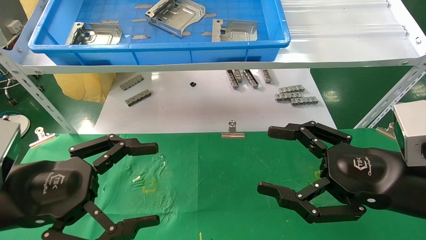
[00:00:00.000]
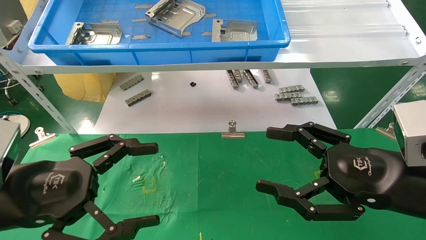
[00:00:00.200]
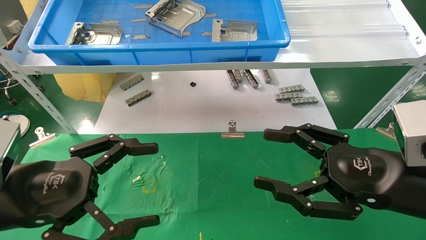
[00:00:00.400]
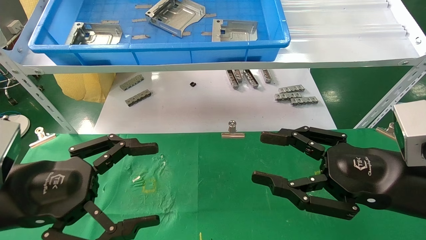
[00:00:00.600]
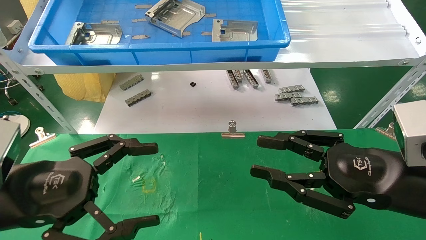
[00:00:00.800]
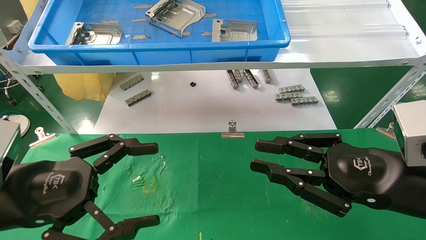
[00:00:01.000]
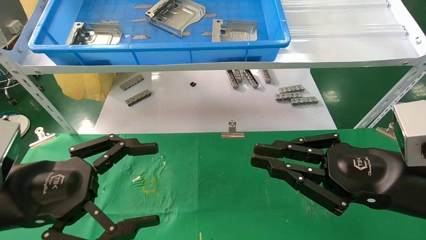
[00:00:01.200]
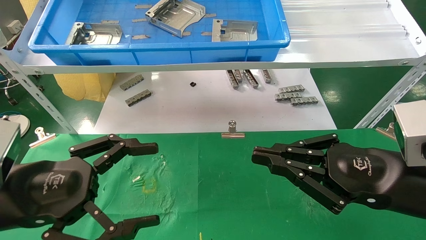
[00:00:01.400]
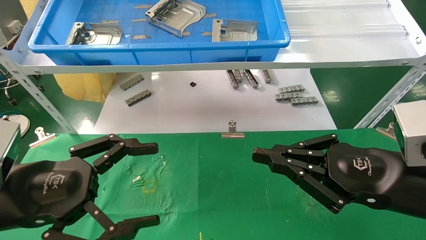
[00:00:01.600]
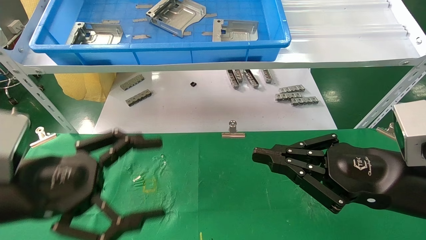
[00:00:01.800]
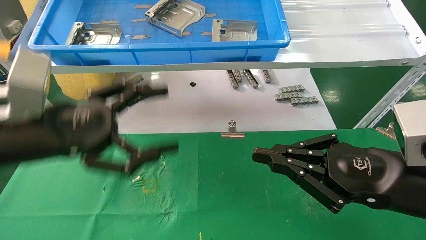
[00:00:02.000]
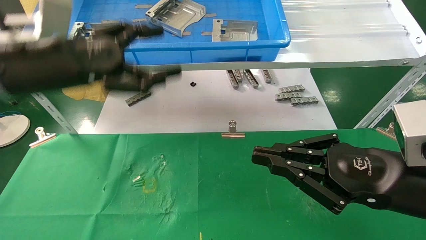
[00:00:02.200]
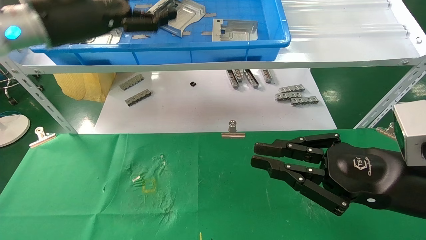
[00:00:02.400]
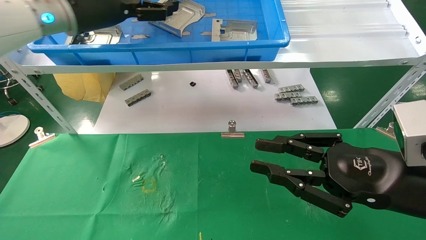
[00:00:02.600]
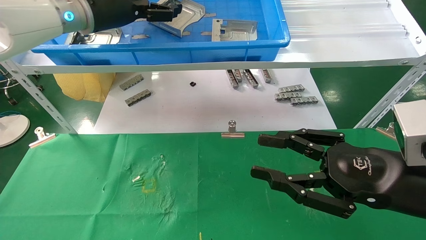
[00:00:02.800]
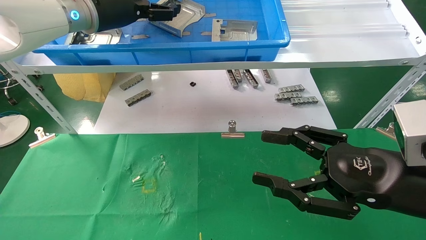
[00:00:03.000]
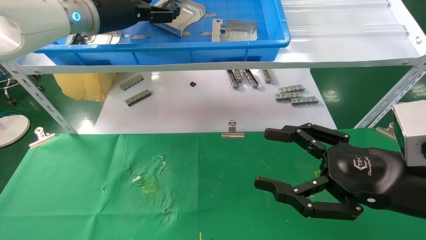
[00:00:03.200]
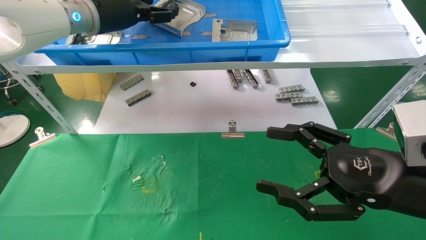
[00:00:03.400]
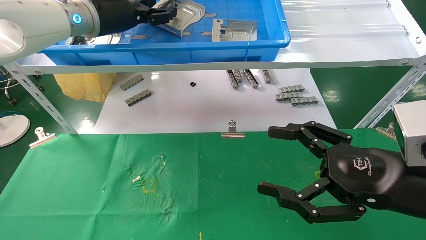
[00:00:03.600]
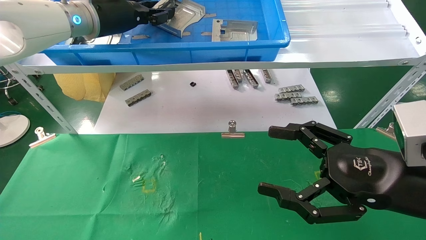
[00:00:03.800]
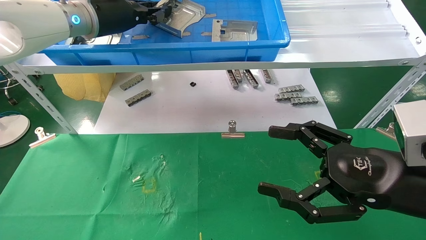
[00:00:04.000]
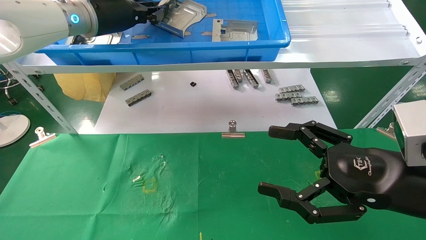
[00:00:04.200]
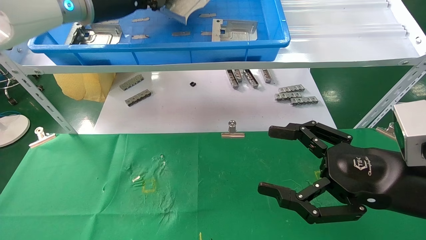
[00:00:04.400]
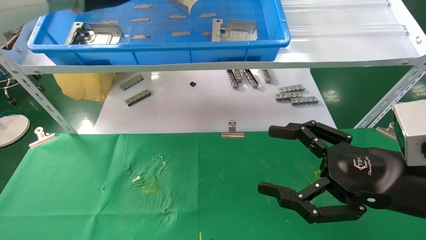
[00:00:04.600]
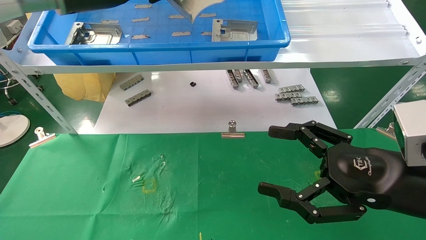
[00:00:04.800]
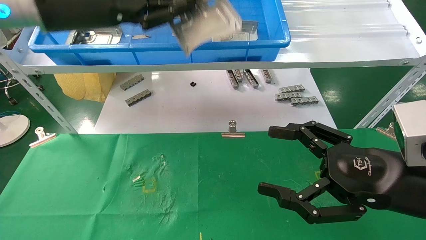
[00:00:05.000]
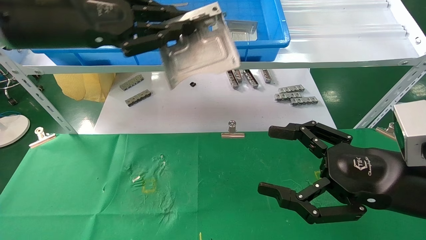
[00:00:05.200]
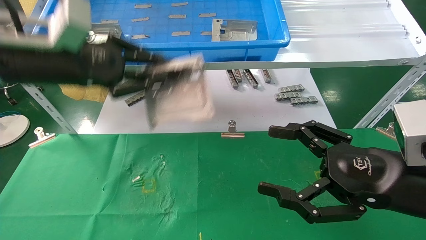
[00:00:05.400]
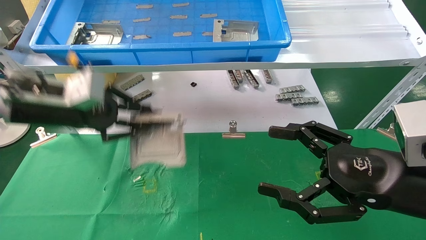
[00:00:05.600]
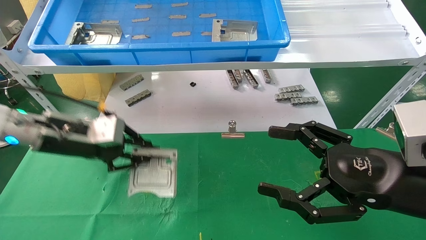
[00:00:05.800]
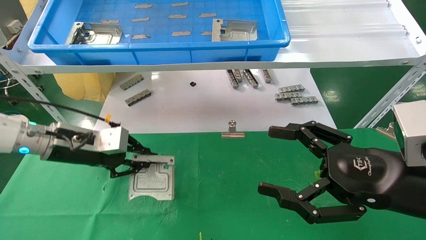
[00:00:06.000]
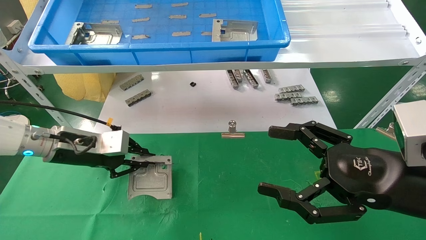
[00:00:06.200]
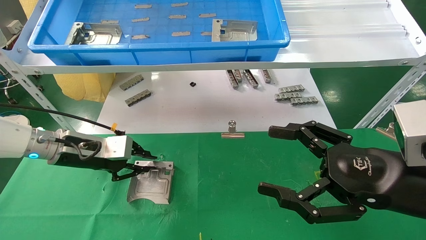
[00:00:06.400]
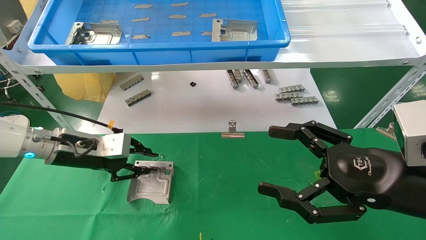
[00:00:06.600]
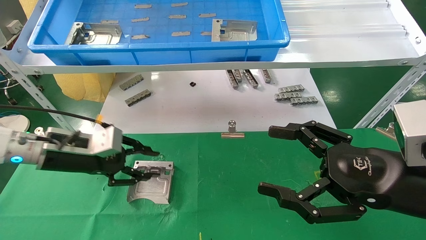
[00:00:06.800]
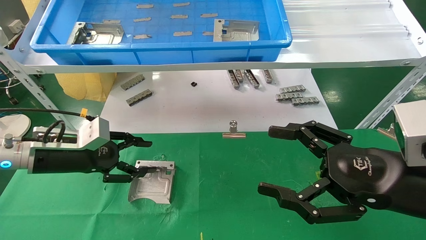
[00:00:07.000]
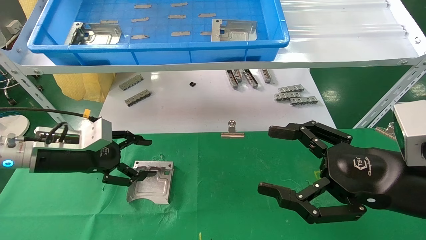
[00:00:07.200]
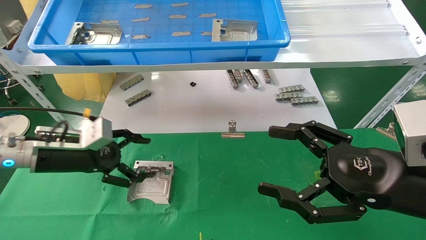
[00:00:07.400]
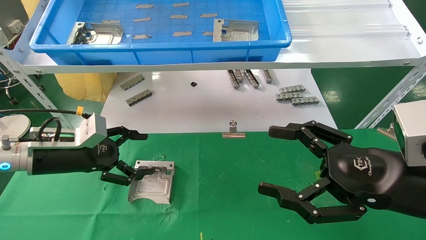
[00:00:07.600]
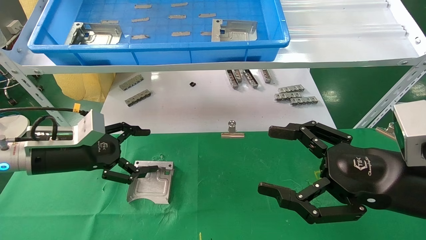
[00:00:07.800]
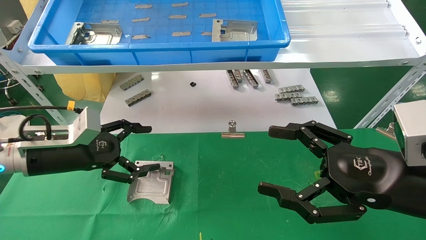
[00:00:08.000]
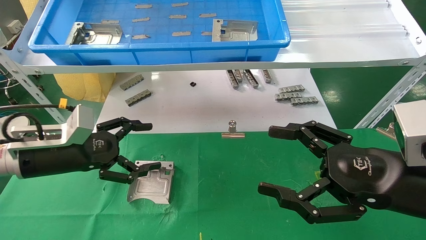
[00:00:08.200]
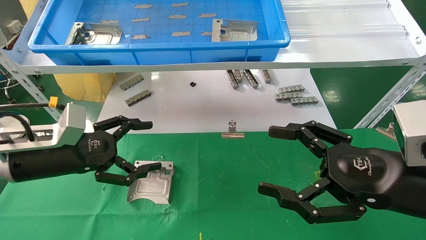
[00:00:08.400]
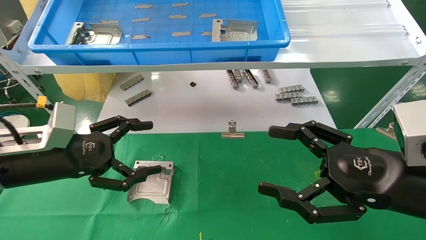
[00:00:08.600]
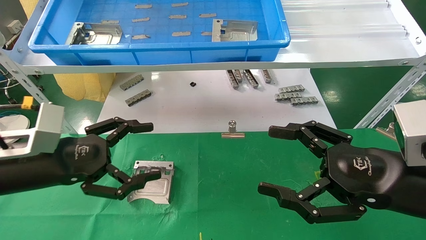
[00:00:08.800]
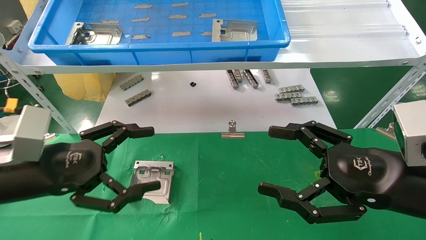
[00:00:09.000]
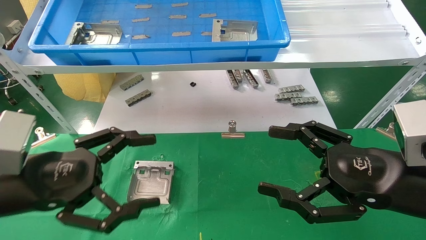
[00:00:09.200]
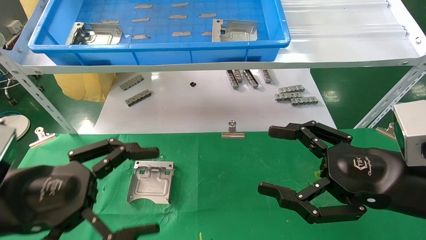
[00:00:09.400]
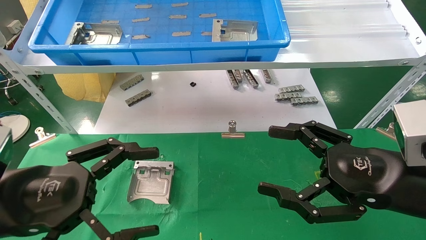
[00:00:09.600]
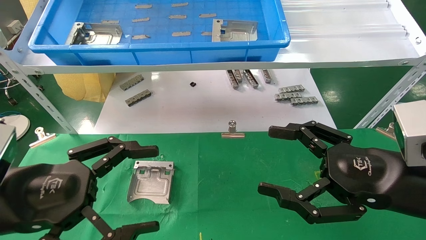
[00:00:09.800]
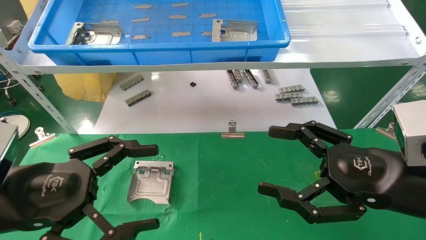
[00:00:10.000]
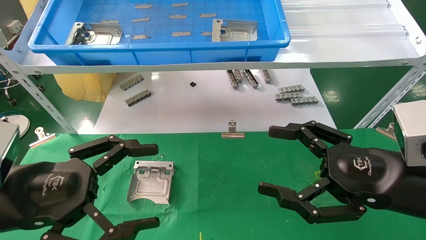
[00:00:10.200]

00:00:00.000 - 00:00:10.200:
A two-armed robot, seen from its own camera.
Task of the whole recording: use the mechanical arm to pick up the parts and place them on the table.
Step, 00:00:01.400 - 00:00:05.000: Pick up the hard drive bracket from the feeding area.
Step, 00:00:05.200 - 00:00:08.400: Place the hard drive bracket into the box.
00:00:00.000 - 00:00:01.400: The right gripper closes its fingers.
00:00:01.400 - 00:00:03.000: The left gripper goes roughly 35 cm forward and upward; the right gripper opens up.
00:00:03.000 - 00:00:04.400: The right gripper opens up. The left gripper closes up.
00:00:04.400 - 00:00:05.800: The left gripper goes about 20 cm downward.
00:00:05.800 - 00:00:07.200: The left gripper heads downward, covering some 5 cm, and opens.
00:00:07.200 - 00:00:08.800: The left gripper moves backward, approximately 10 cm, and opens up.
00:00:08.800 - 00:00:10.200: The left gripper travels backward by about 10 cm.
